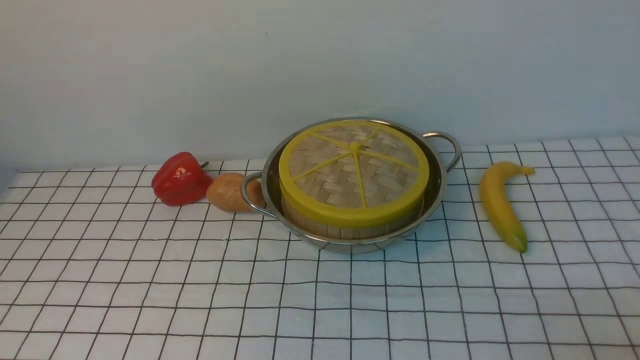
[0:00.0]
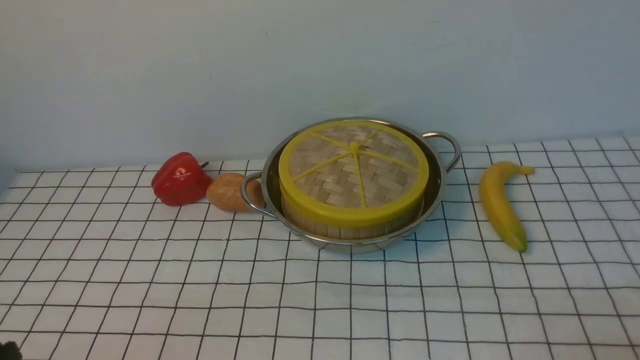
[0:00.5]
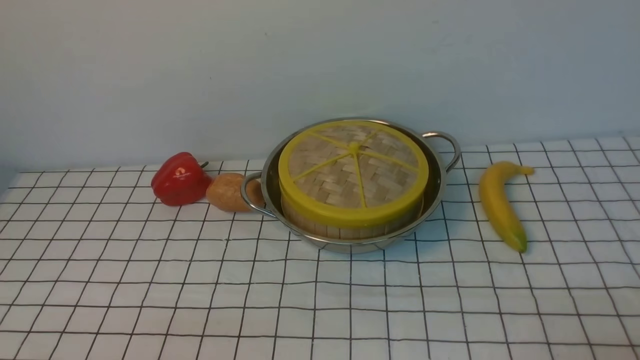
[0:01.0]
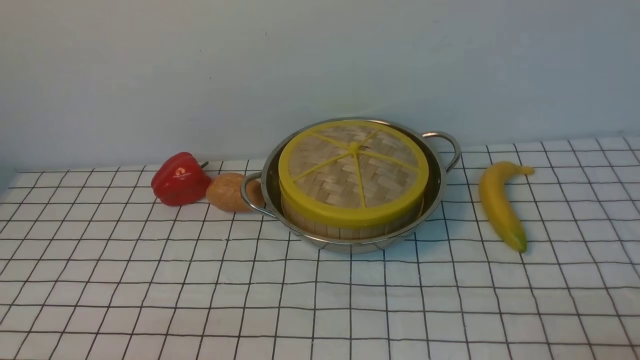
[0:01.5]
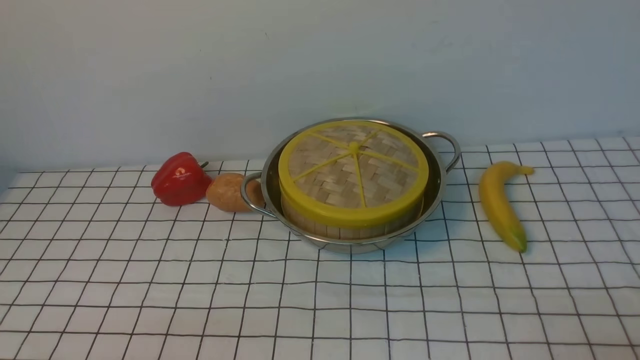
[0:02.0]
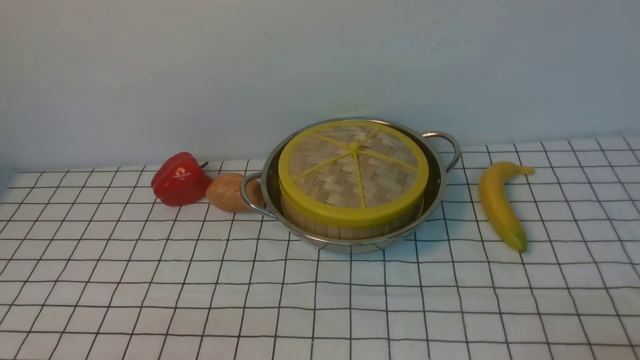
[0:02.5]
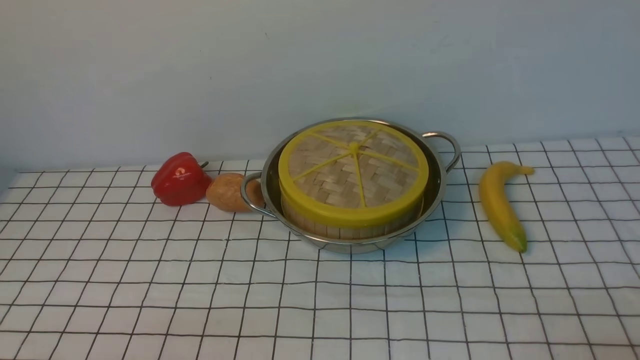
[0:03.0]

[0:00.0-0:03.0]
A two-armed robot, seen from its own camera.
Task of the whole recording: place the steamer in the pot on the white tablecloth, and put the lid on the steamer.
0:01.5 to 0:03.0: The two grippers keep their place.
